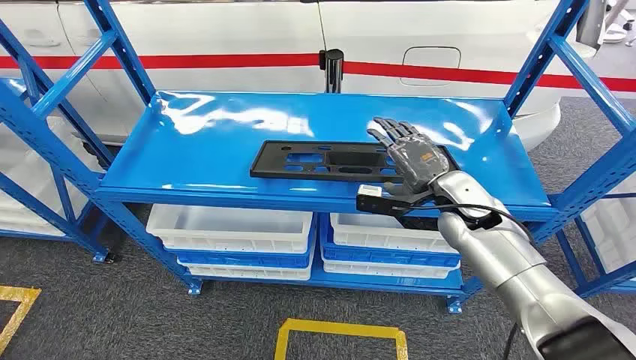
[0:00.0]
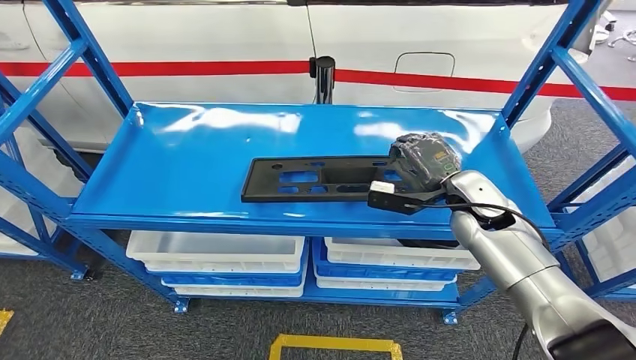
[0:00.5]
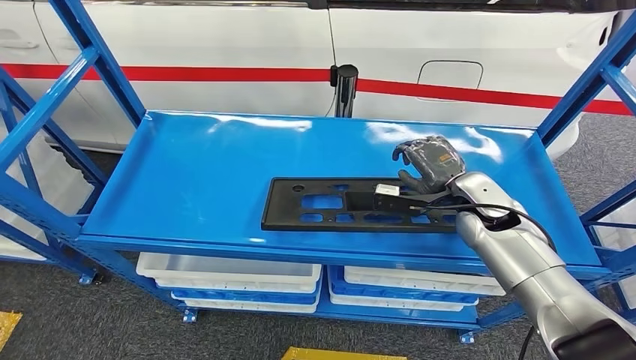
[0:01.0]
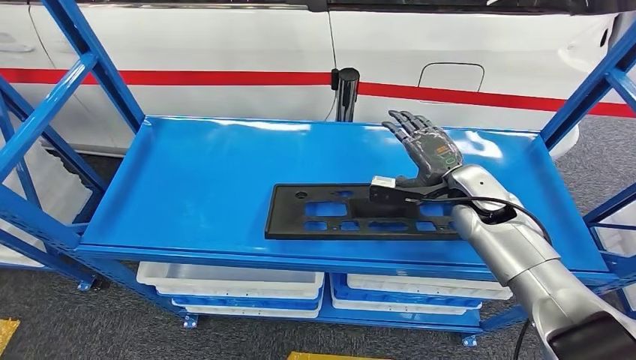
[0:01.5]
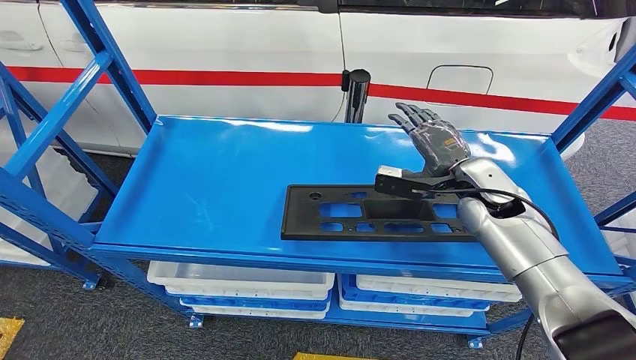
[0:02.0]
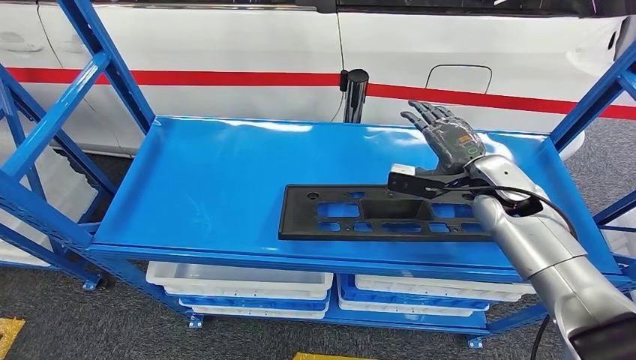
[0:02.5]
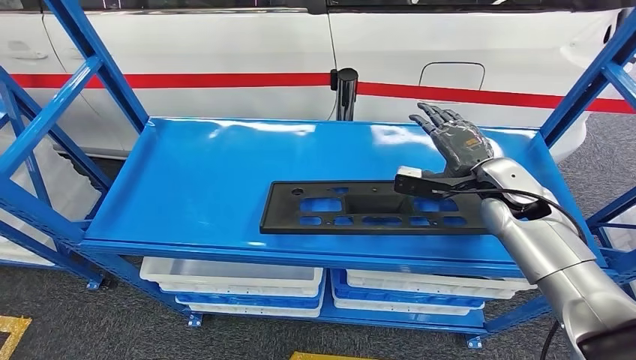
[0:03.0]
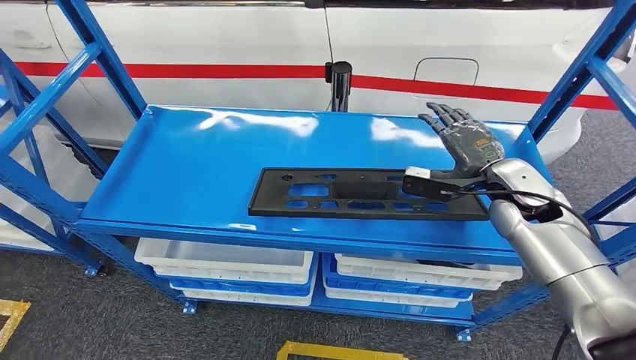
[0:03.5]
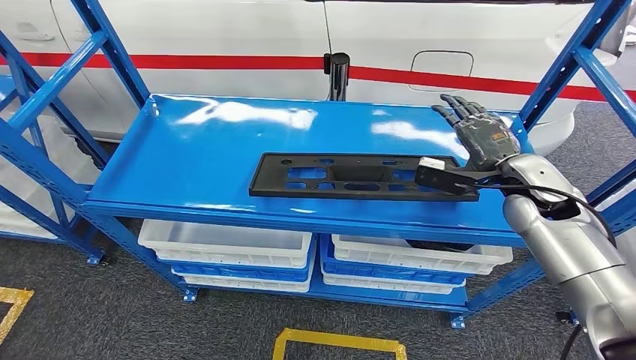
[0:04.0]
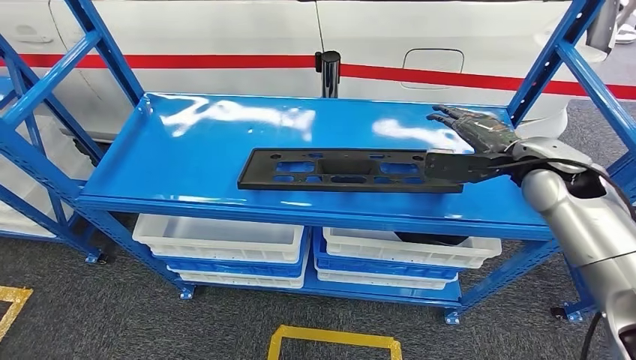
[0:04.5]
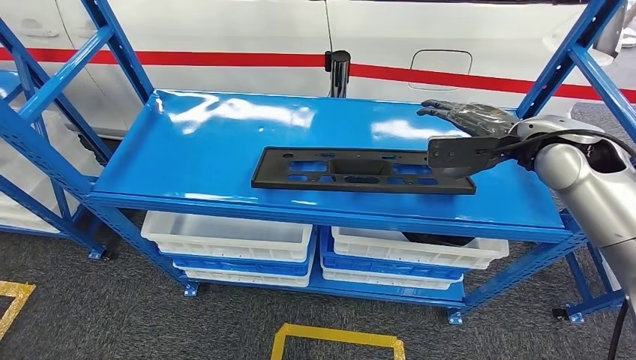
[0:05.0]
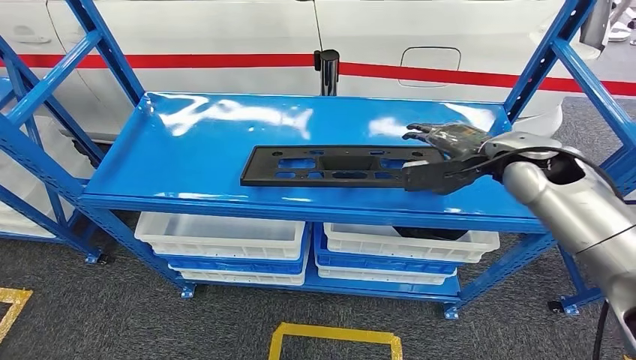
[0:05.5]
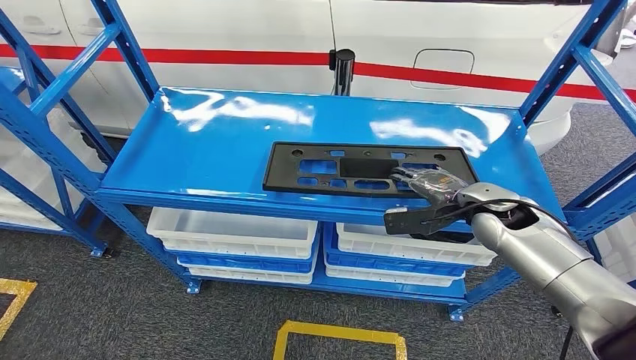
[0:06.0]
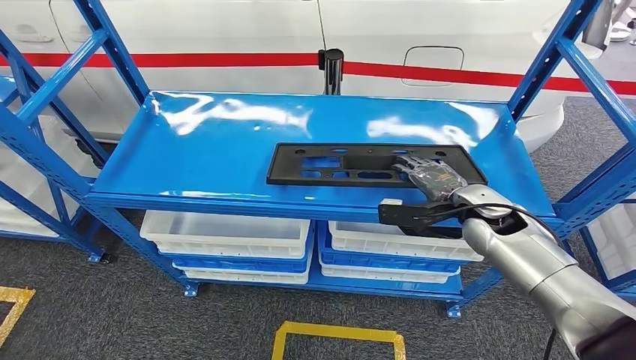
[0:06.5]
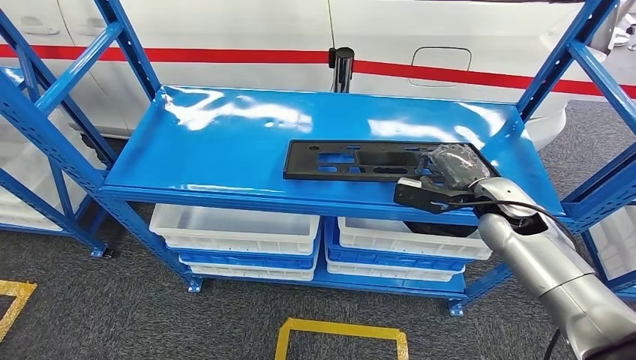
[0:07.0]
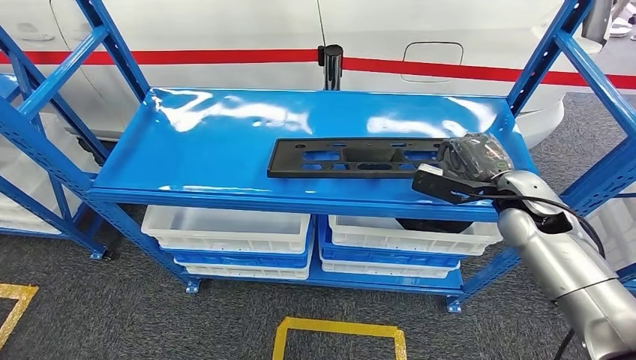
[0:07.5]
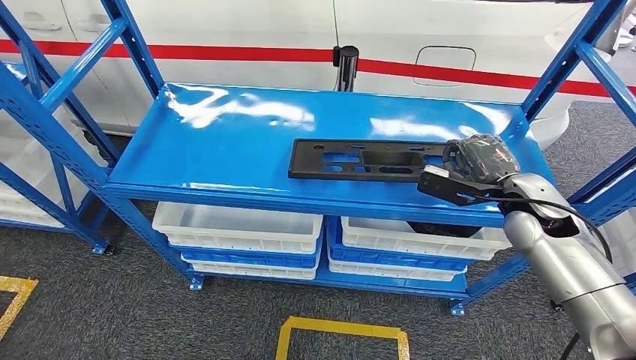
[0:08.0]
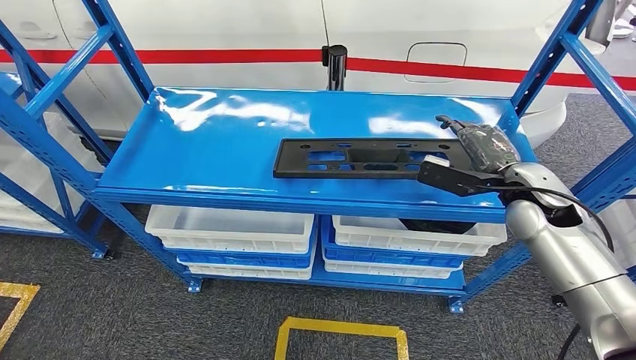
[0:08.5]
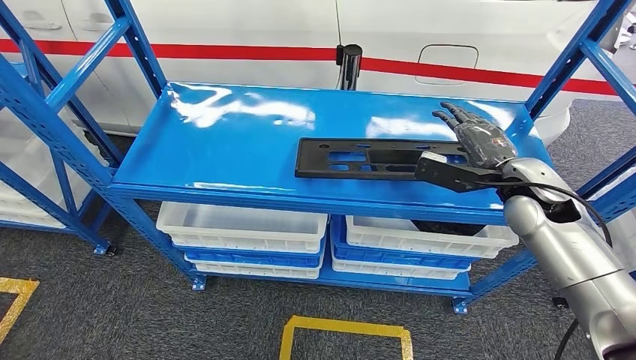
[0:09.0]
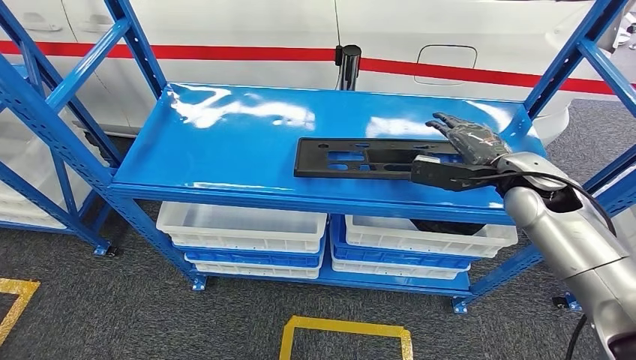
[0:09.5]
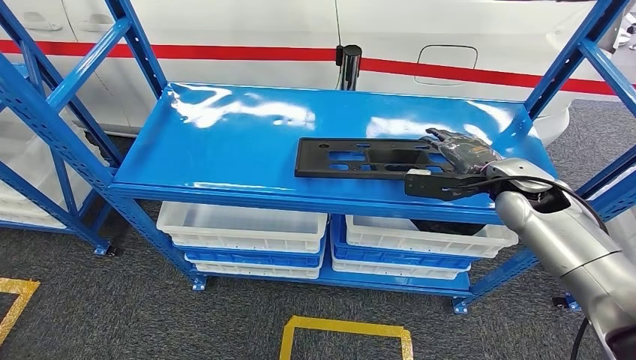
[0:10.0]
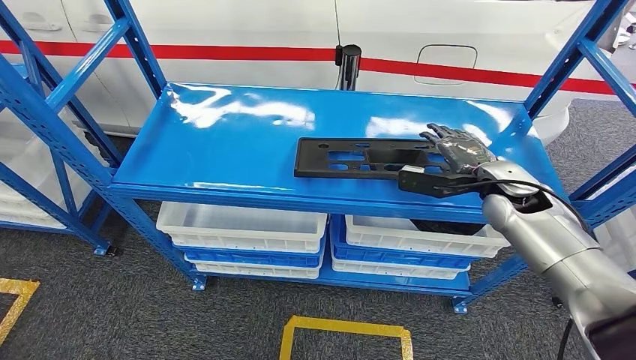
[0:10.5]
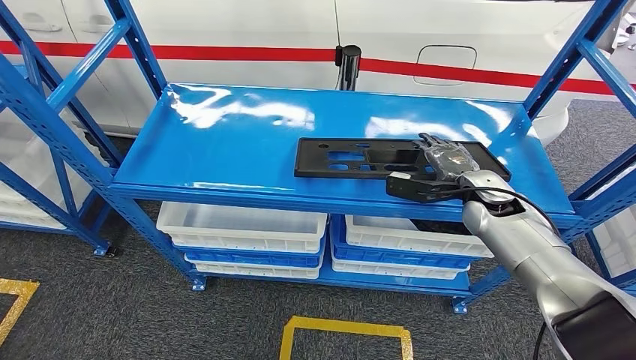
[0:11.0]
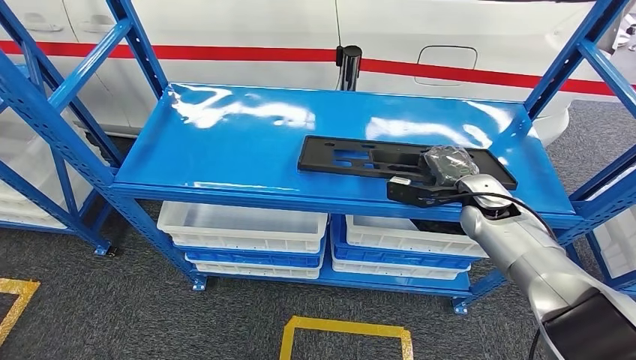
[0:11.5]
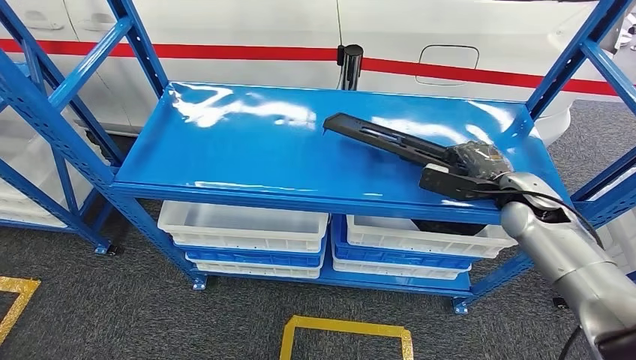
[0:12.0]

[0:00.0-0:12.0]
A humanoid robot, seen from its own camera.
0:08.0 to 0:10.0: The hands move only a little.

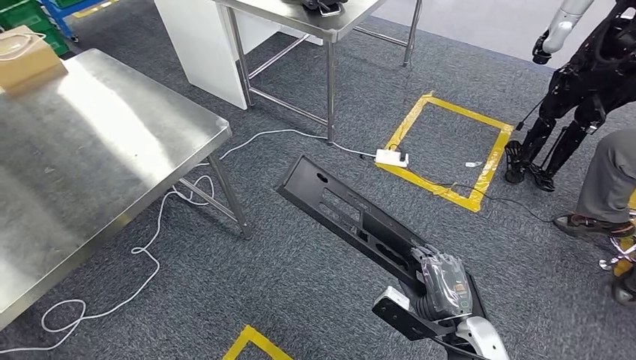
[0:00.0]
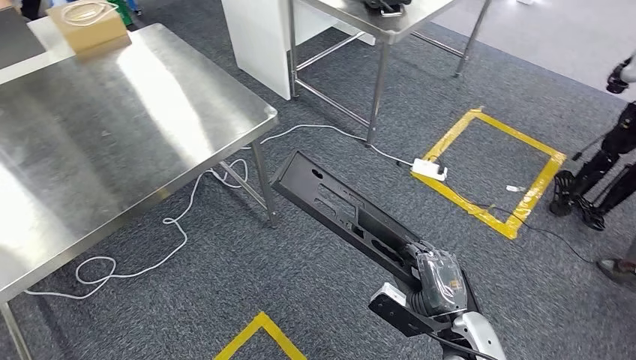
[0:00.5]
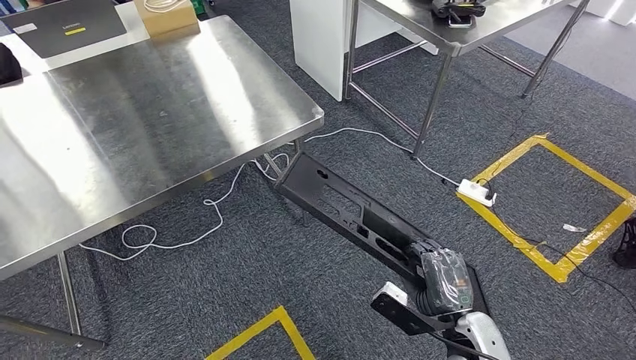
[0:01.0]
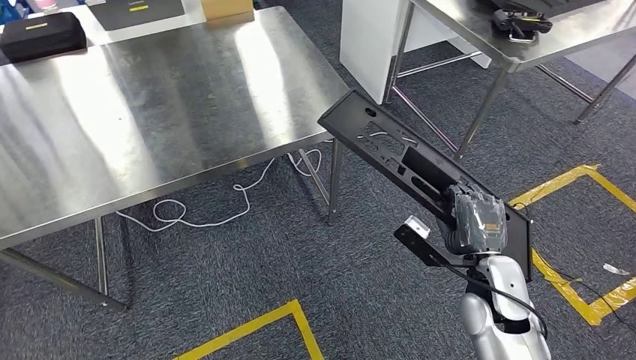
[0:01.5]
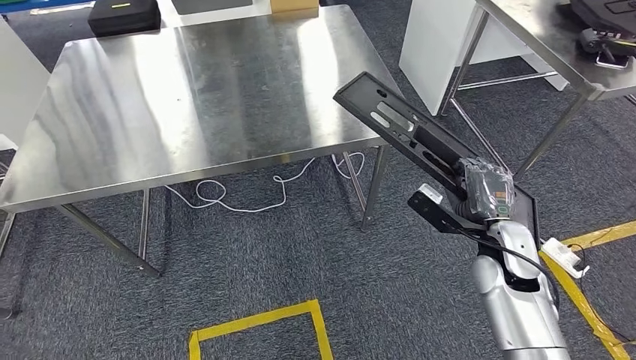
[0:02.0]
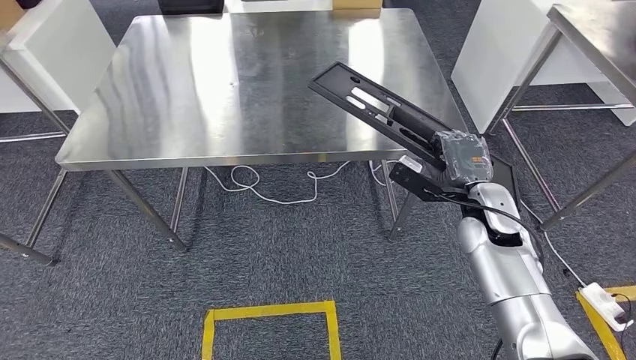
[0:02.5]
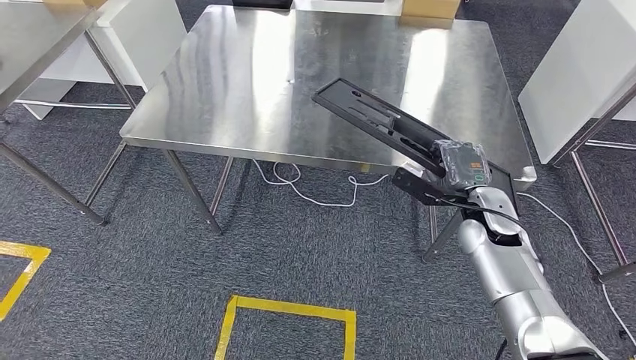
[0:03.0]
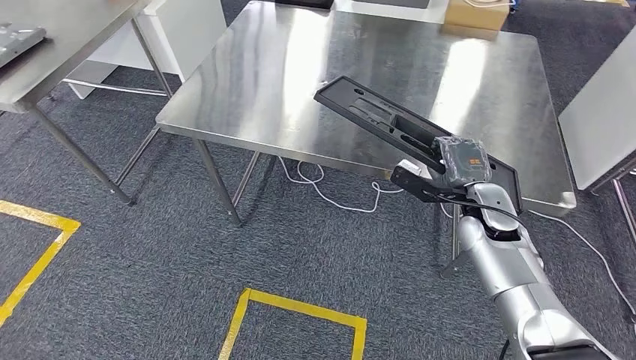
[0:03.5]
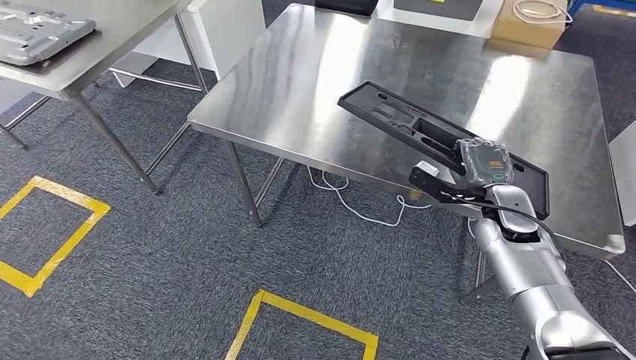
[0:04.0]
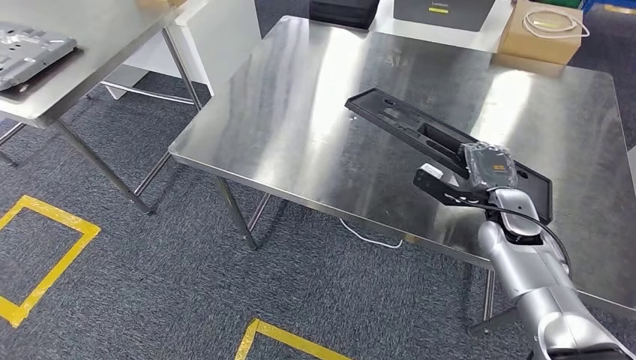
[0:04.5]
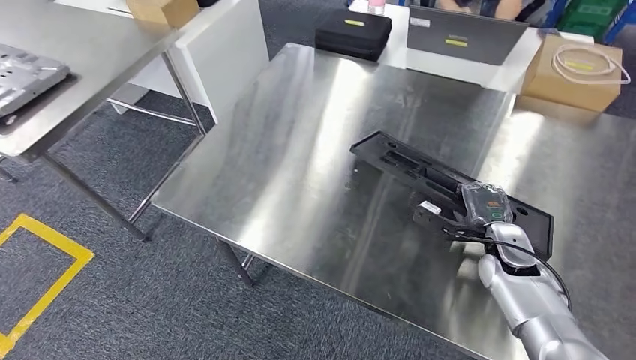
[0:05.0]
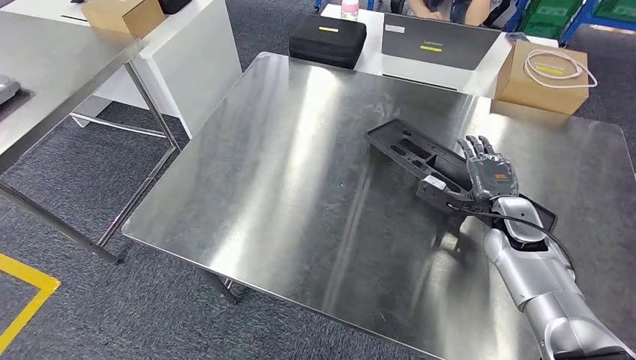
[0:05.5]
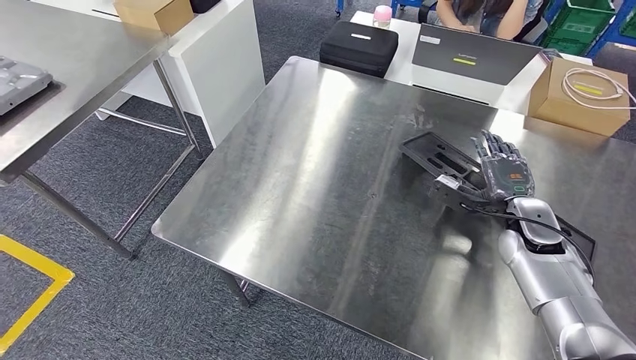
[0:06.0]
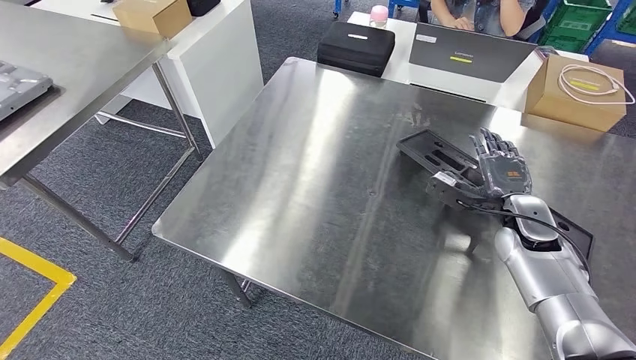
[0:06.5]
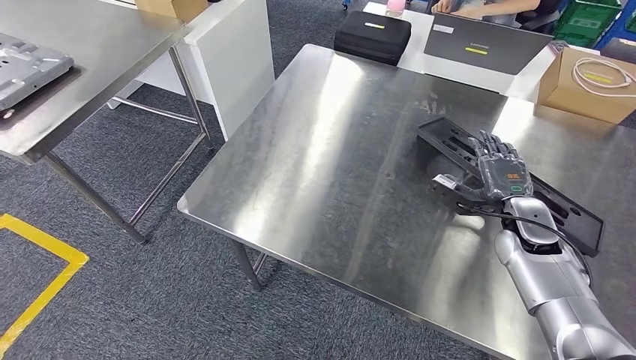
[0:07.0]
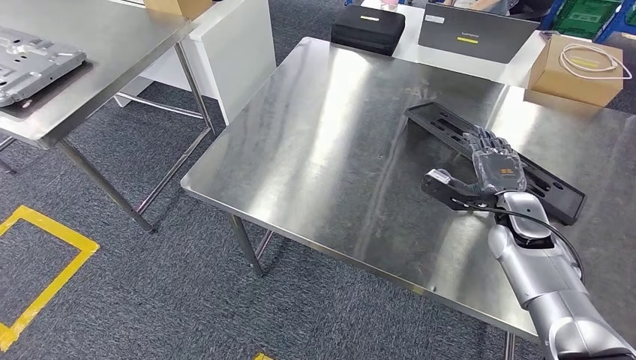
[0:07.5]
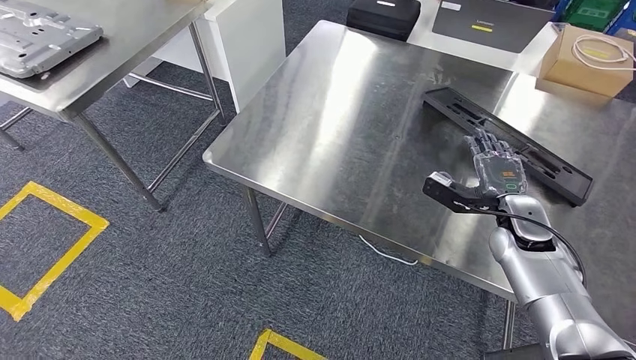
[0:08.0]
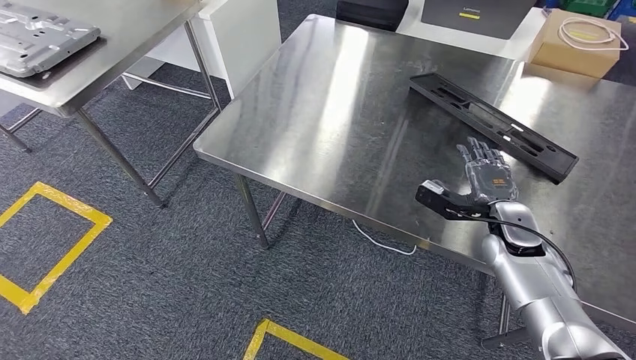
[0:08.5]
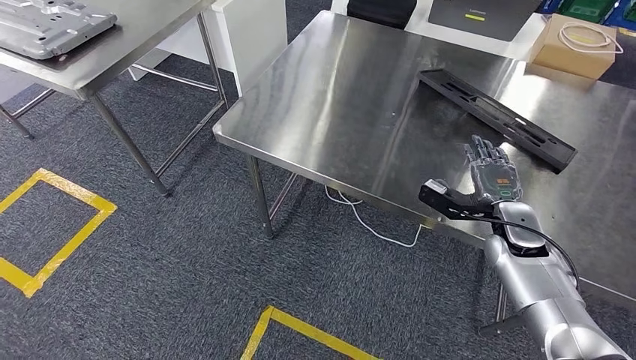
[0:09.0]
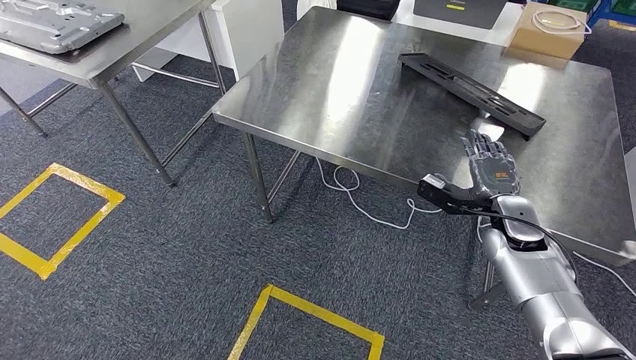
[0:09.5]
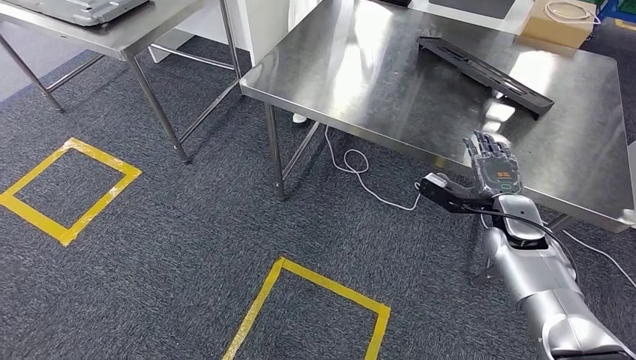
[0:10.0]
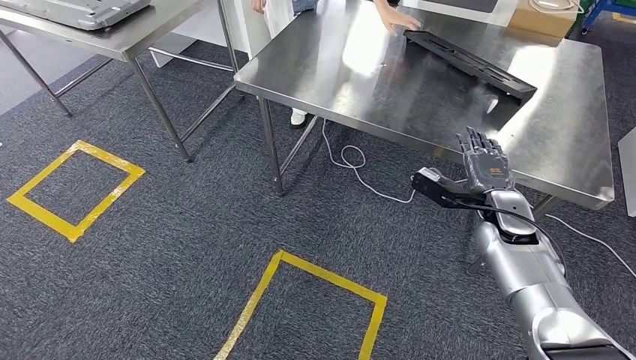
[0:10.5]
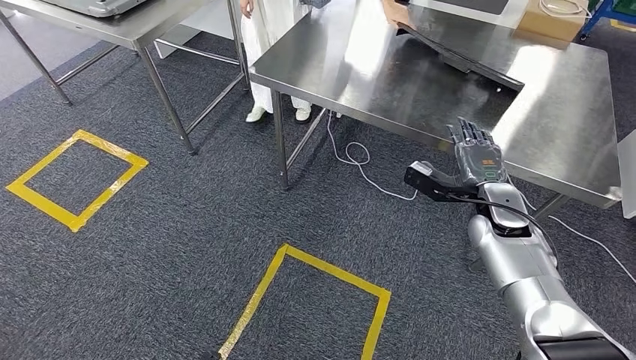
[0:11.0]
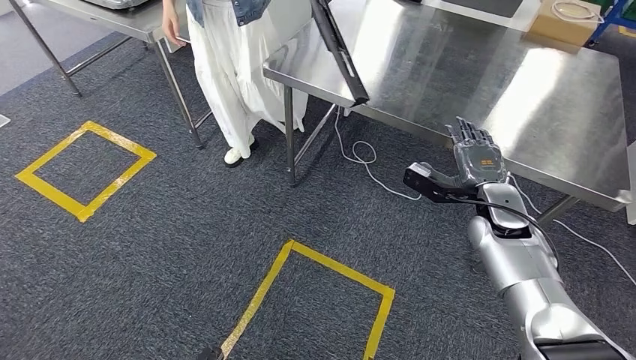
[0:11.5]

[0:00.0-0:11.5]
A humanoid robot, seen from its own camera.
Step, 0:00.0 to 0:03.0: Move the large material to the workbench.
Step, 0:03.5 to 0:11.0: Insert the large material into the corresponding slot on the workbench.
